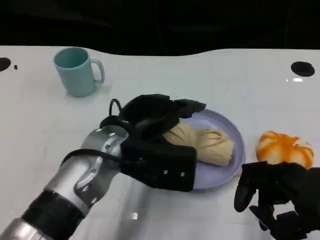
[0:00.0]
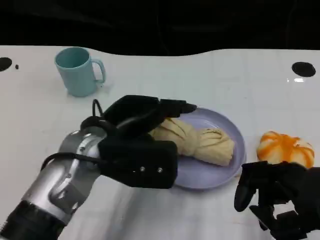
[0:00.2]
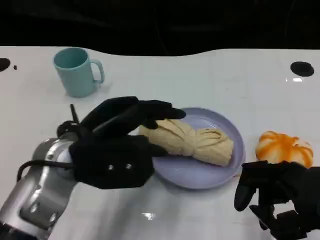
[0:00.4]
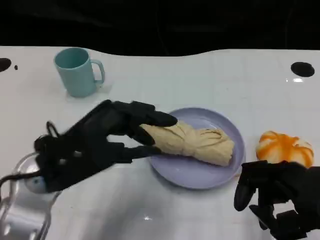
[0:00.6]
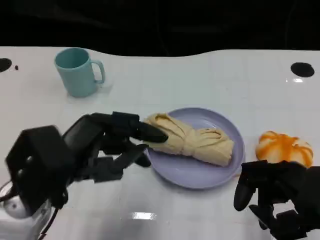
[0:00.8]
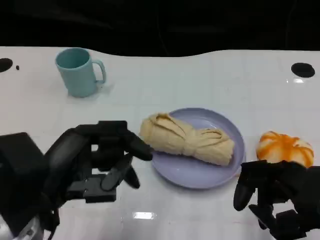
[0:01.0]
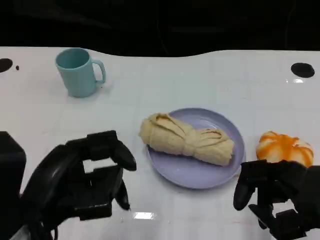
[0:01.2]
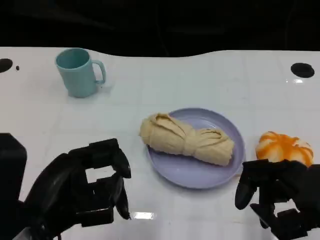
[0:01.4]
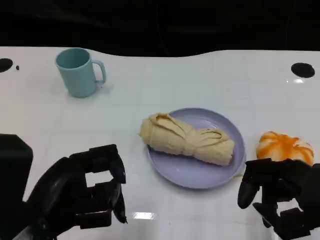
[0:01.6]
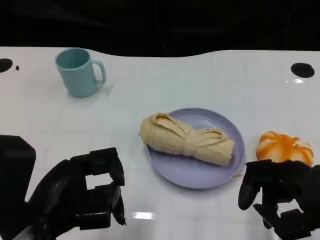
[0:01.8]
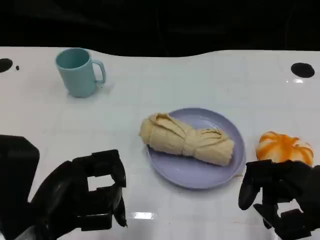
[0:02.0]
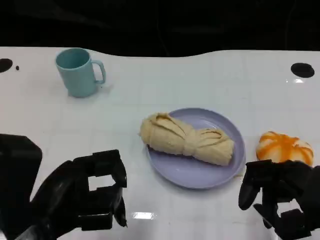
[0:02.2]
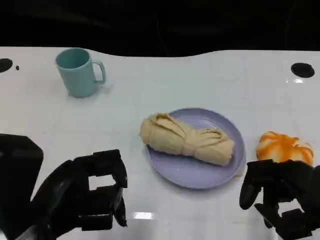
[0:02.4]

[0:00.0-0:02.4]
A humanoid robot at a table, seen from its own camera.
Task of the whole recording: Grasp the towel on the left side of the plate with the left hand and place it into the plate.
0:00.0 to 0:01.2: The left hand shifts some 15 cm backward and to the left.
0:01.2 to 0:02.4: There are only small adjustments of the hands.

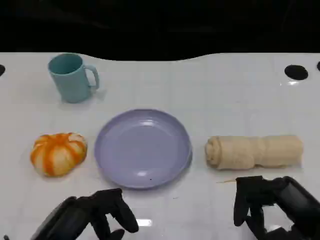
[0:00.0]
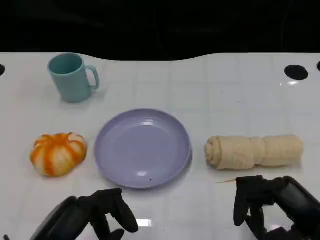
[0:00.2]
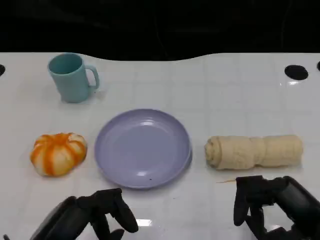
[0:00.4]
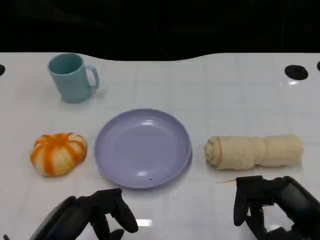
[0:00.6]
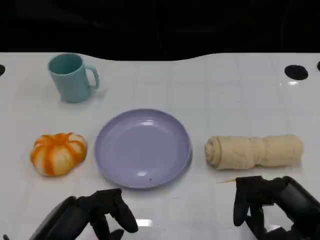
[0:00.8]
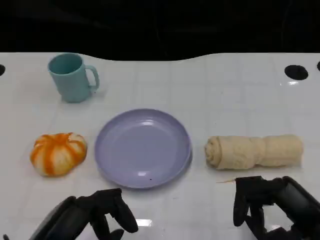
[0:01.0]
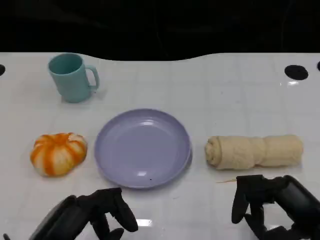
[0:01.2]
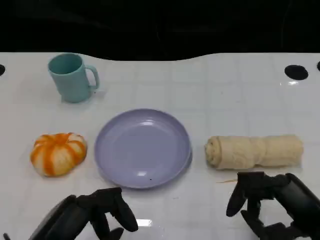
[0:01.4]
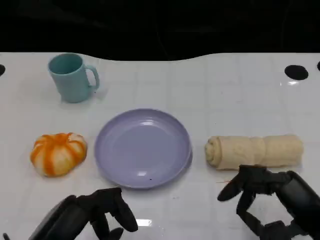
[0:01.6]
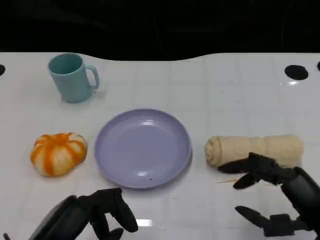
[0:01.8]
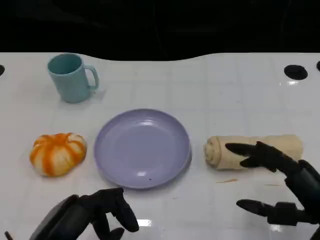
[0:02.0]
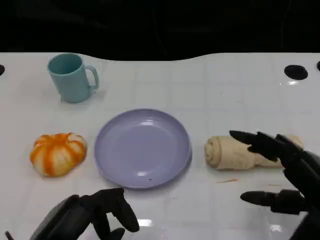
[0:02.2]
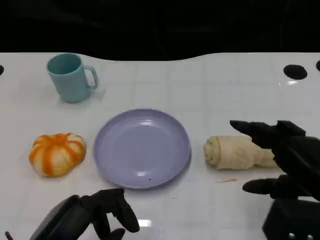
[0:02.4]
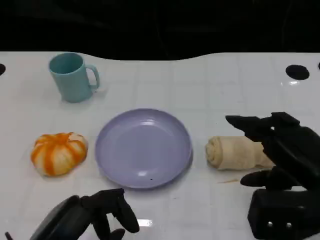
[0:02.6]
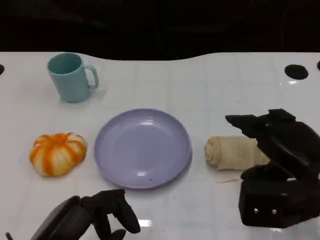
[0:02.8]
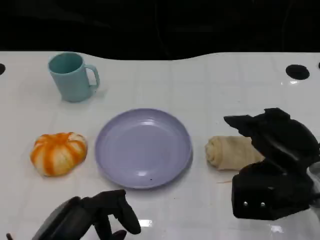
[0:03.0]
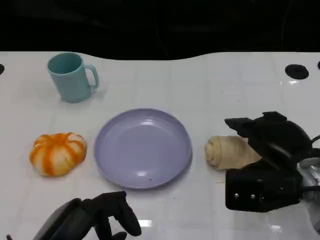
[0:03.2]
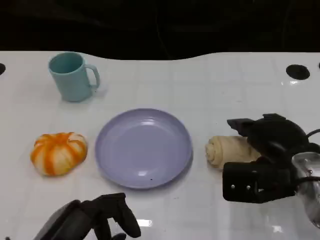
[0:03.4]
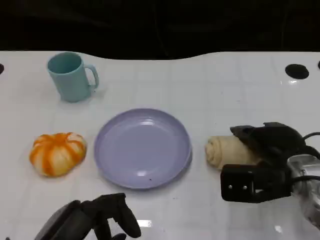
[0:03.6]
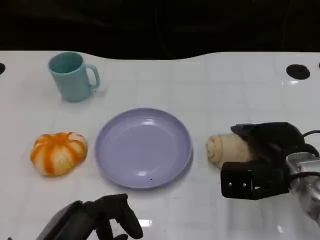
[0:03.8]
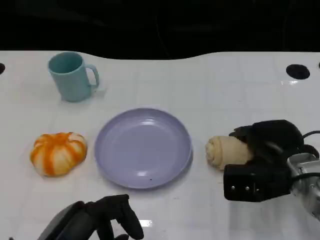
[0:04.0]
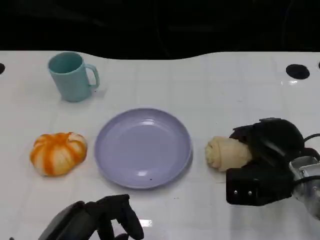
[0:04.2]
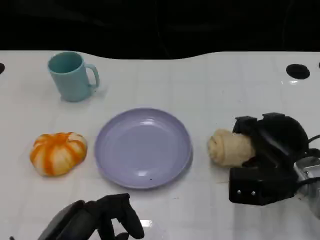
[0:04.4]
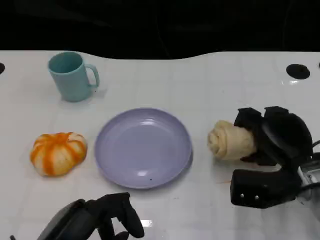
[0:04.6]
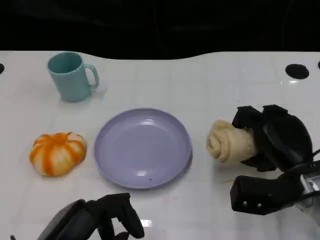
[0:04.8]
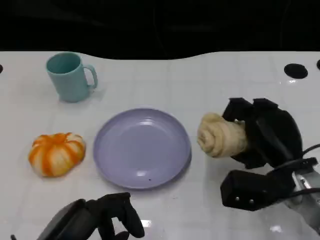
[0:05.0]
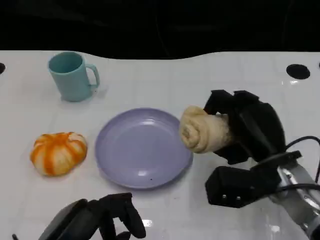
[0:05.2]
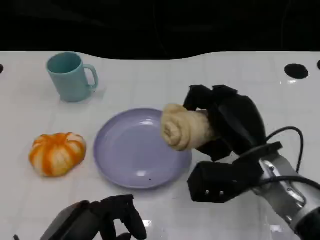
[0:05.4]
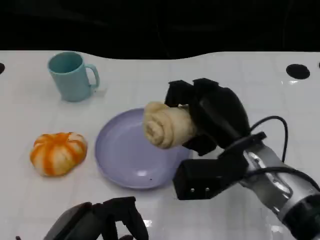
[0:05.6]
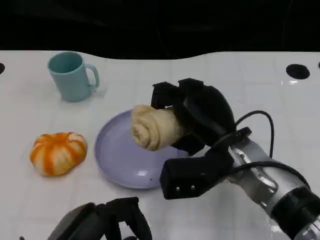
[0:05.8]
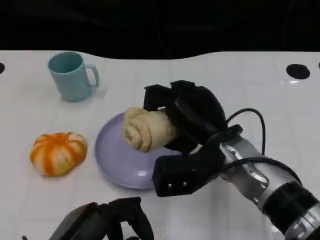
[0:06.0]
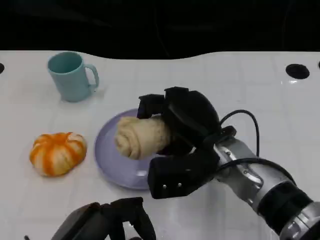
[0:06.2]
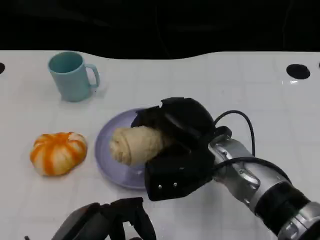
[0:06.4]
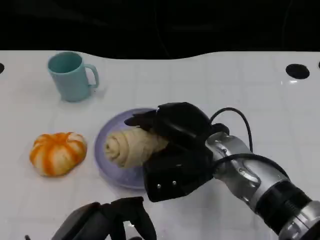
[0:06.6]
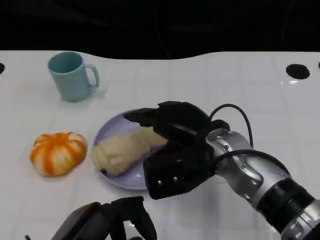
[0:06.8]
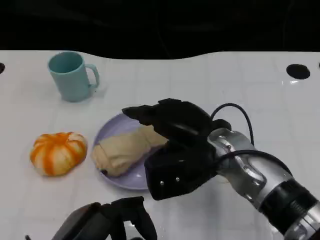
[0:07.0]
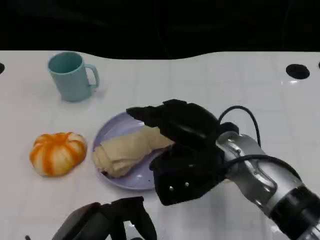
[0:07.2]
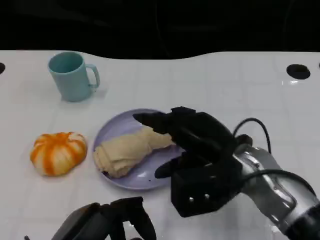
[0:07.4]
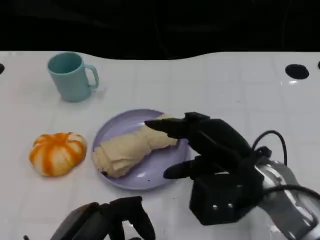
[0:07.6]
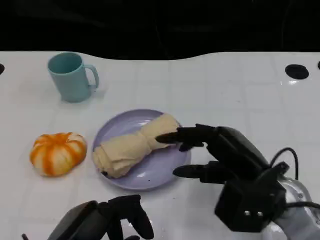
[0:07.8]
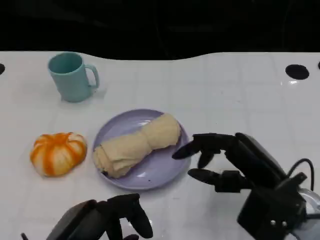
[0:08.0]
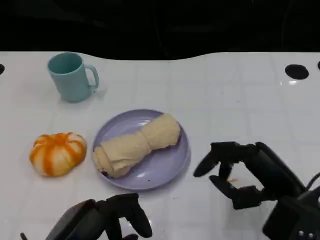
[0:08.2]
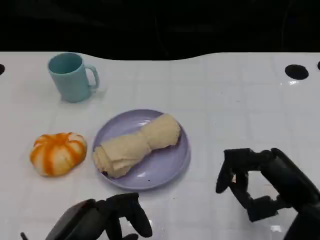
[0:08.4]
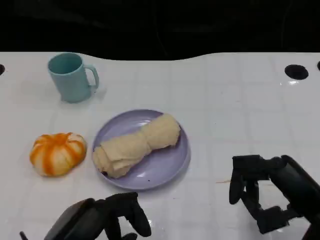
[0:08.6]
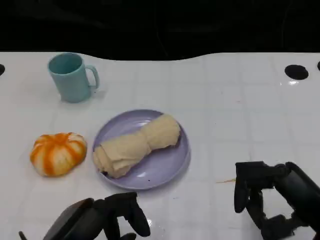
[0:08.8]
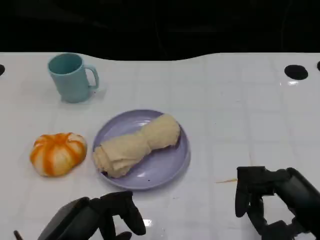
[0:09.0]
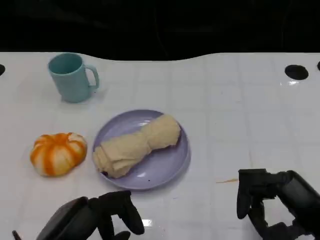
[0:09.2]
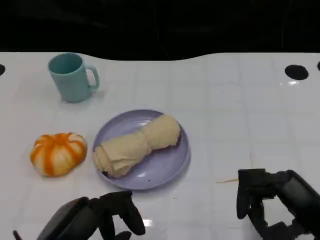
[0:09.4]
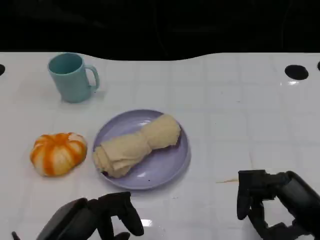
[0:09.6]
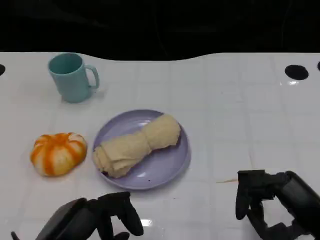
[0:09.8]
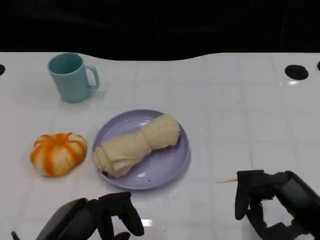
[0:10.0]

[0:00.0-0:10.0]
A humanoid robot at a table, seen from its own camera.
Task of the whole recording: Grasp the towel on the left side of the plate with the left hand and place it into the plate.
0:00.0 to 0:01.4: Neither hand changes place.
0:01.4 to 0:02.8: The right hand shifts roughly 5 cm forward.
0:02.8 to 0:04.2: The right hand travels downward and forward by about 10 cm.
0:04.2 to 0:05.8: The right hand is displaced to the left and upward by roughly 10 cm.
0:07.2 to 0:08.6: The right hand travels to the right and backward by approximately 15 cm.
0:08.6 to 0:10.0: There are only small adjustments of the hands.

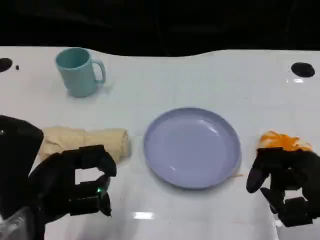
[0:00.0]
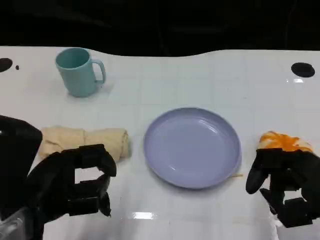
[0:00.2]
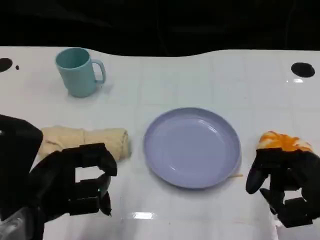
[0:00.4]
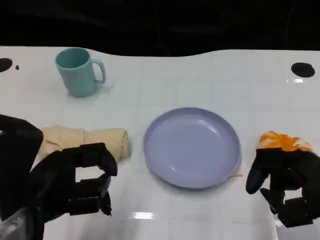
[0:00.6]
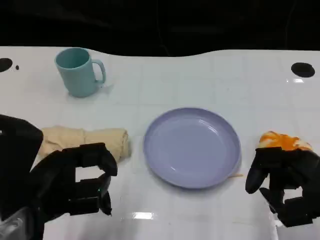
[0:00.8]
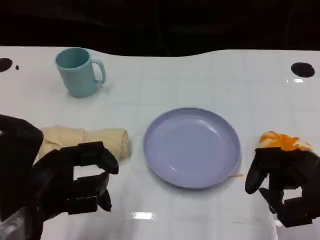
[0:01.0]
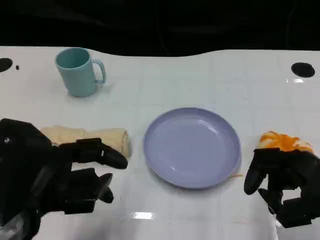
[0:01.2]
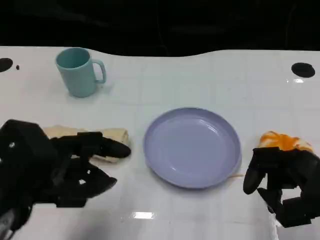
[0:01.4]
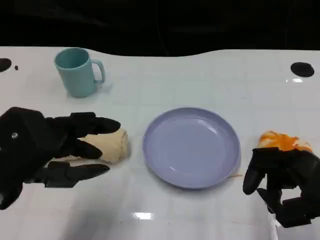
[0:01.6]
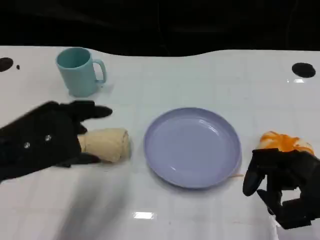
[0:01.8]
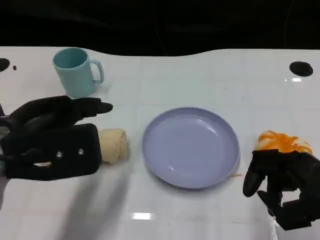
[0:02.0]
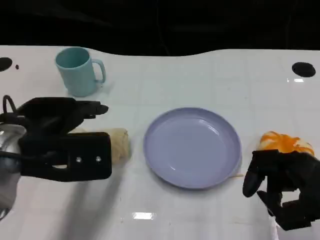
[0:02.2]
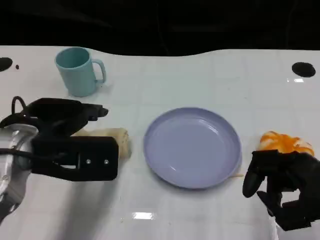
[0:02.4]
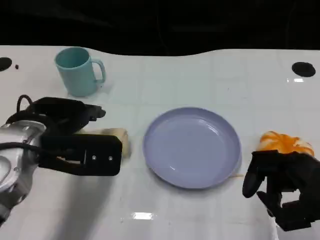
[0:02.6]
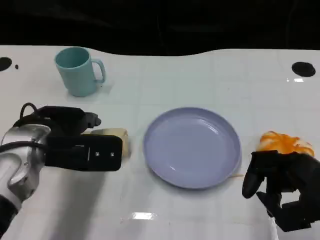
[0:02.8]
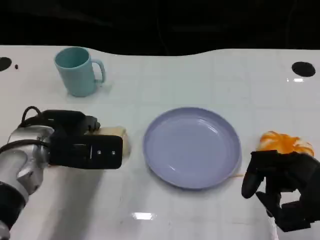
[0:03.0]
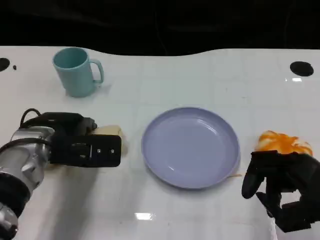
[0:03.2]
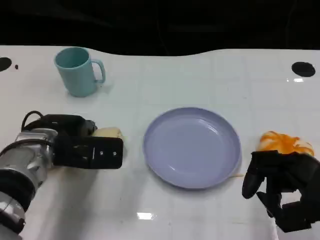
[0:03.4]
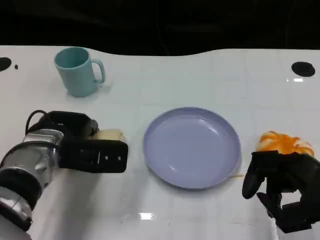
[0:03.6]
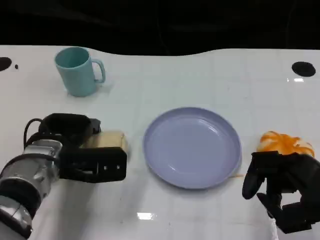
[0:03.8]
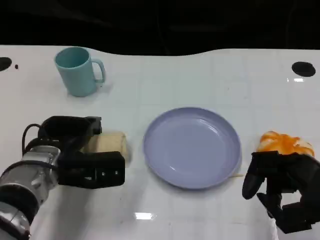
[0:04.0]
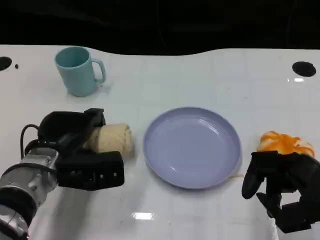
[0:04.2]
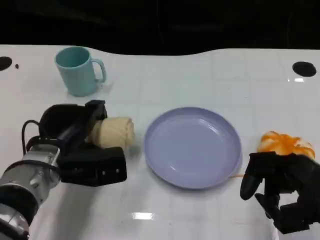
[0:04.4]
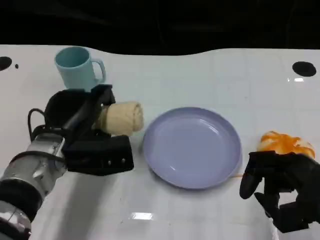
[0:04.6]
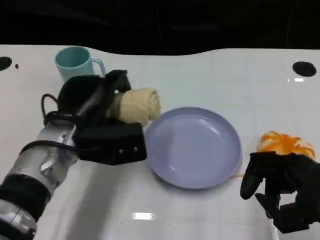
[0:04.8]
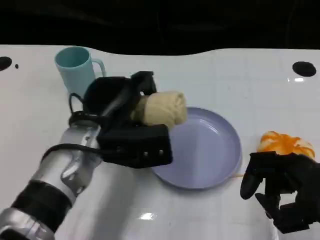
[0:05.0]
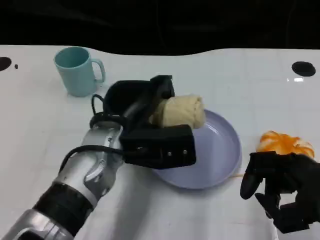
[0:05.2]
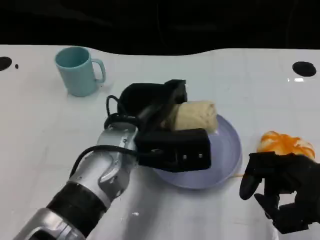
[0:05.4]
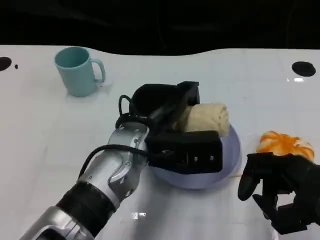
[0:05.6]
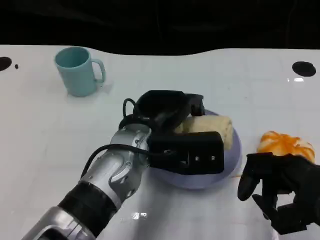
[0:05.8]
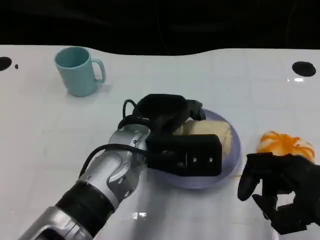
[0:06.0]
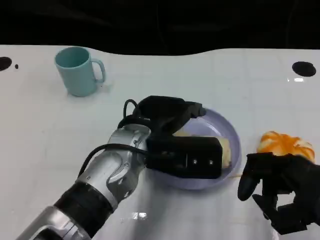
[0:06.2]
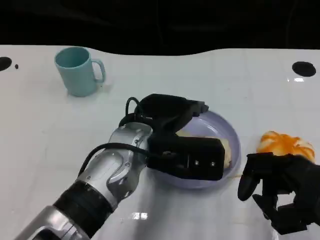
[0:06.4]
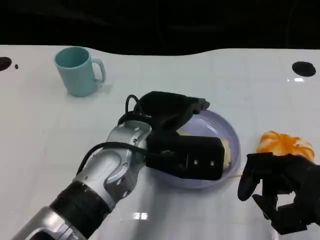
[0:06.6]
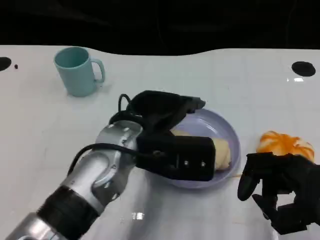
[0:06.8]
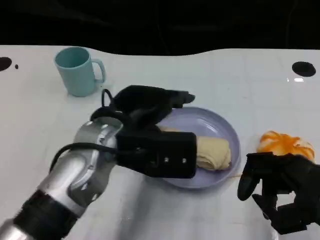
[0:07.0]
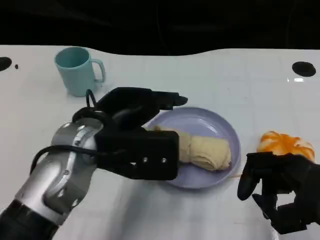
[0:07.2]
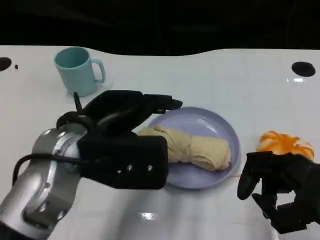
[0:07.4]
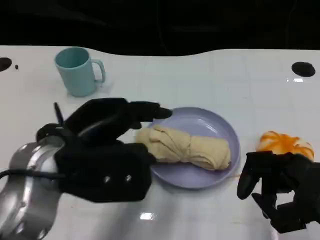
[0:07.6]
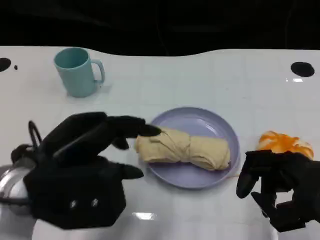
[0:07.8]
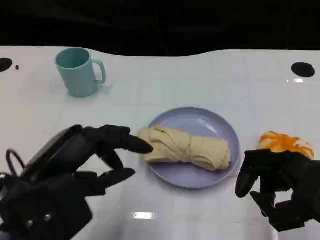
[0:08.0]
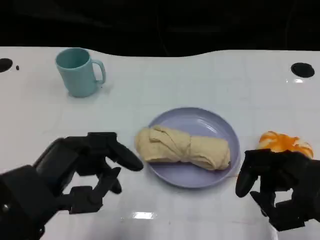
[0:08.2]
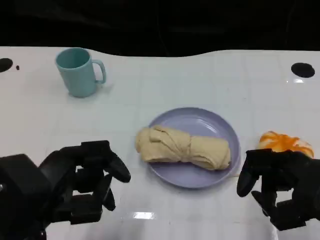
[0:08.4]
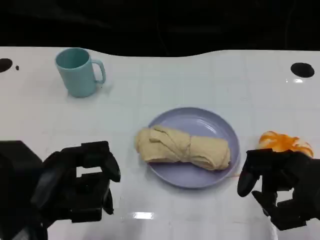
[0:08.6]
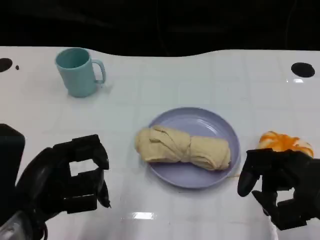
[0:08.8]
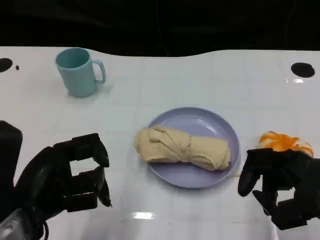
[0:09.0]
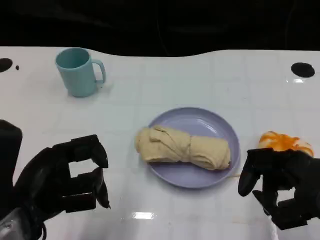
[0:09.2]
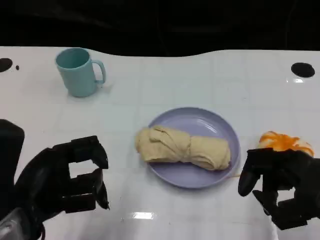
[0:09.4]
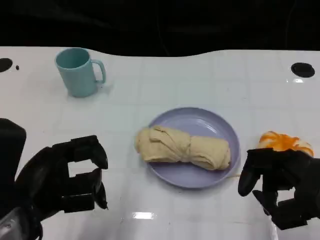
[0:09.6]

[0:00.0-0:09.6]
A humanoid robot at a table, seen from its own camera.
Task of the whole recording: Grasp the towel on the left side of the plate with the left hand and place it into the plate.
0:01.6 to 0:03.2: The left hand heads forward and downward, covering roughly 15 cm.
0:03.2 to 0:04.8: The left hand shifts by about 5 cm.
0:04.8 to 0:06.4: The left hand travels to the right by roughly 10 cm.
0:06.4 to 0:08.0: The left hand is displaced to the left and backward by approximately 20 cm.
